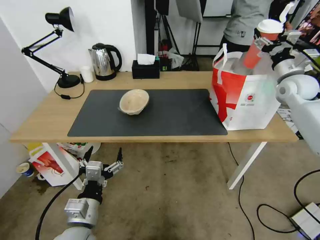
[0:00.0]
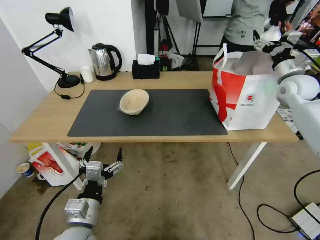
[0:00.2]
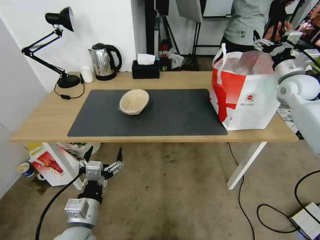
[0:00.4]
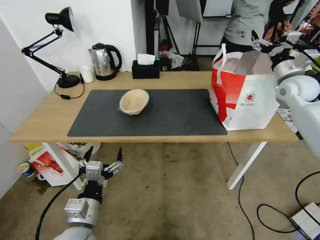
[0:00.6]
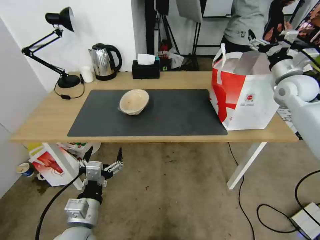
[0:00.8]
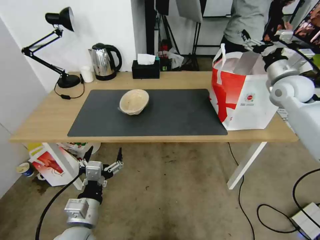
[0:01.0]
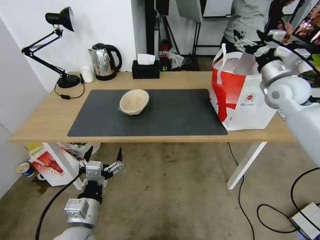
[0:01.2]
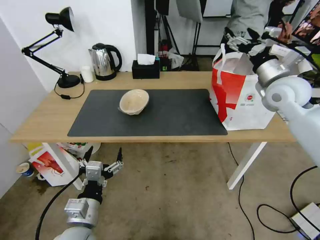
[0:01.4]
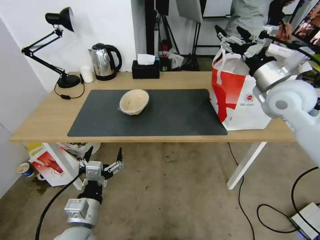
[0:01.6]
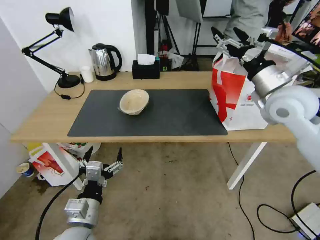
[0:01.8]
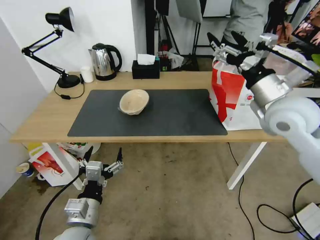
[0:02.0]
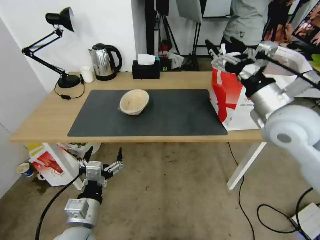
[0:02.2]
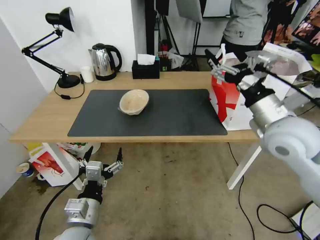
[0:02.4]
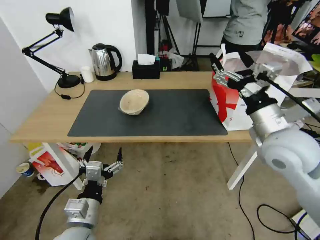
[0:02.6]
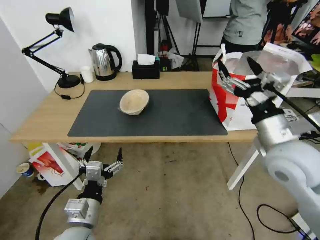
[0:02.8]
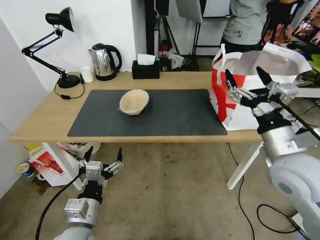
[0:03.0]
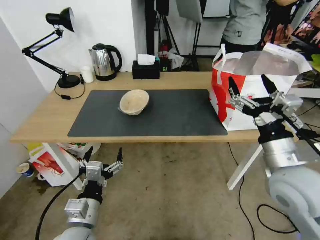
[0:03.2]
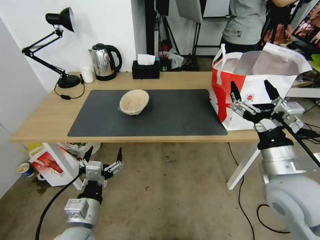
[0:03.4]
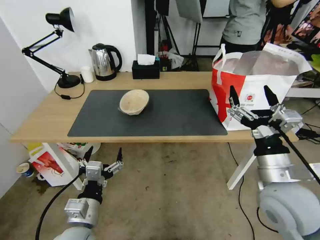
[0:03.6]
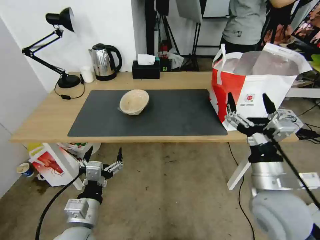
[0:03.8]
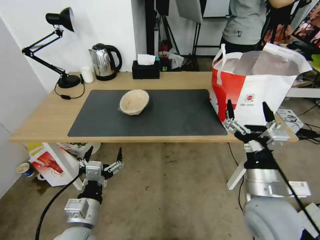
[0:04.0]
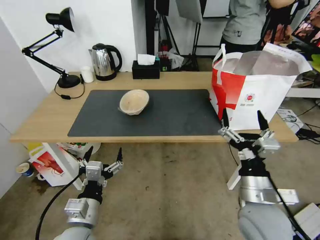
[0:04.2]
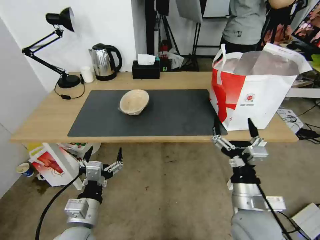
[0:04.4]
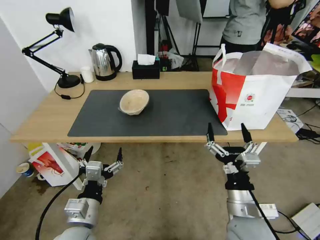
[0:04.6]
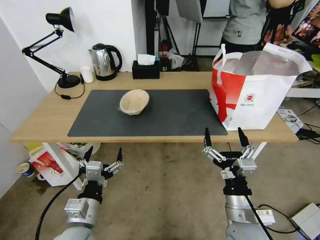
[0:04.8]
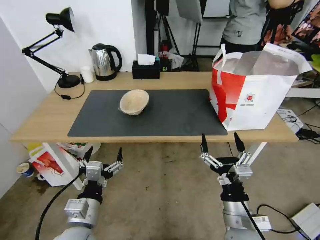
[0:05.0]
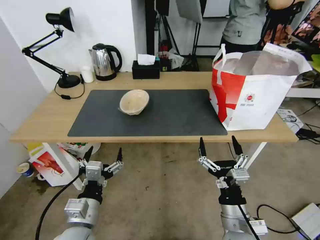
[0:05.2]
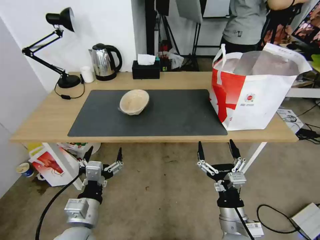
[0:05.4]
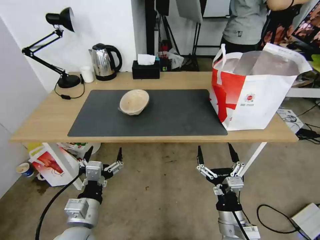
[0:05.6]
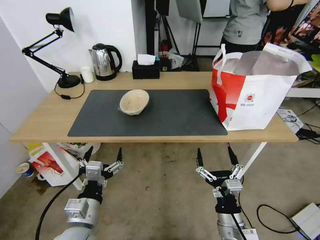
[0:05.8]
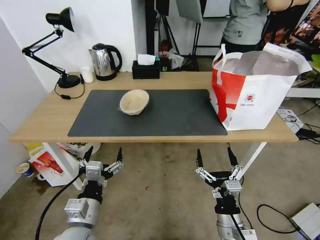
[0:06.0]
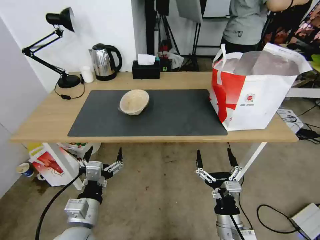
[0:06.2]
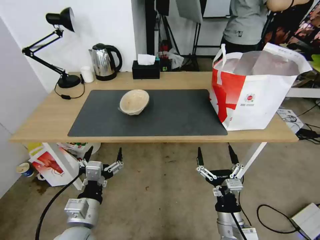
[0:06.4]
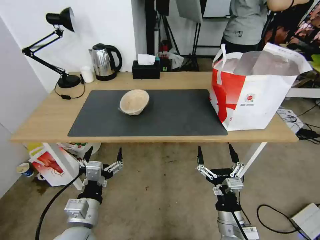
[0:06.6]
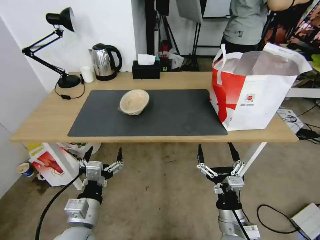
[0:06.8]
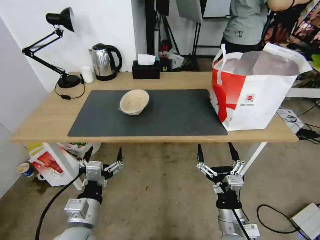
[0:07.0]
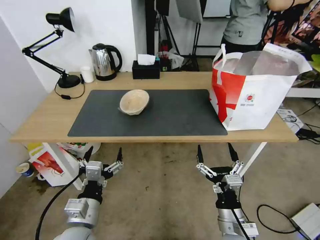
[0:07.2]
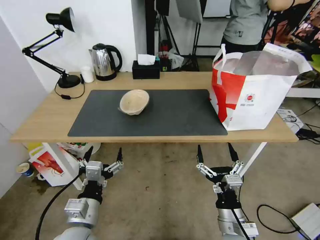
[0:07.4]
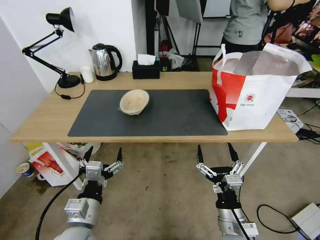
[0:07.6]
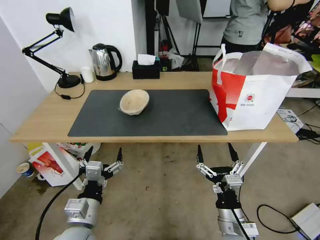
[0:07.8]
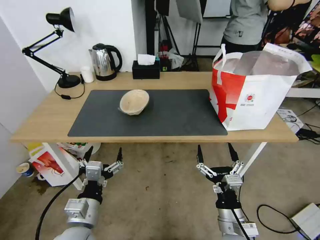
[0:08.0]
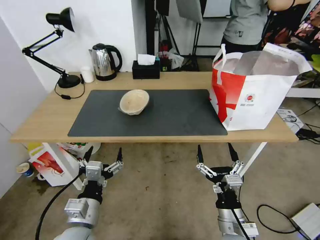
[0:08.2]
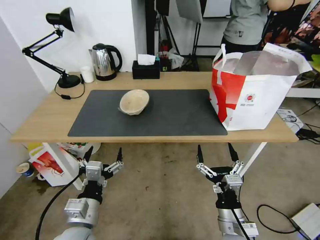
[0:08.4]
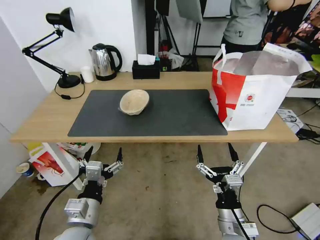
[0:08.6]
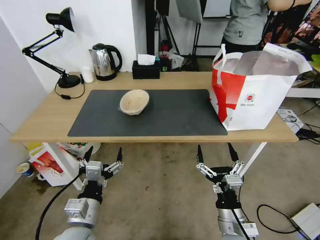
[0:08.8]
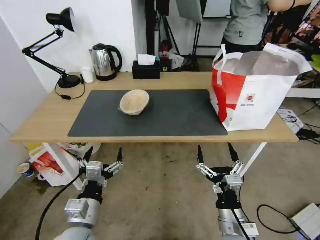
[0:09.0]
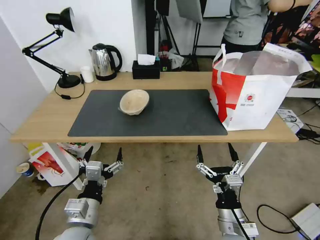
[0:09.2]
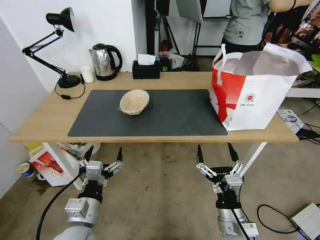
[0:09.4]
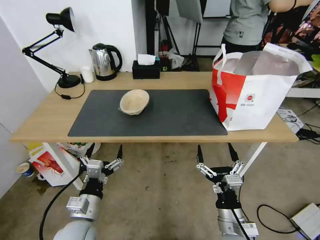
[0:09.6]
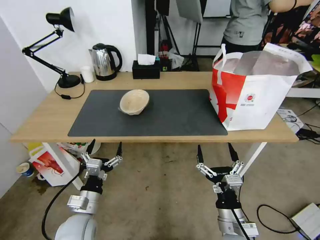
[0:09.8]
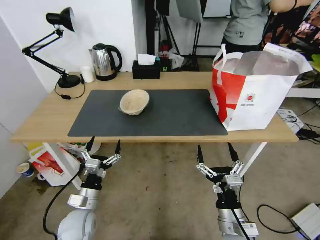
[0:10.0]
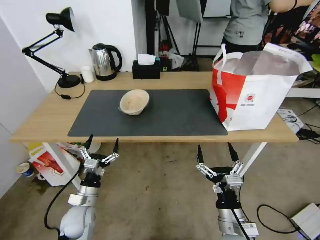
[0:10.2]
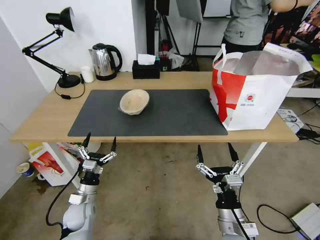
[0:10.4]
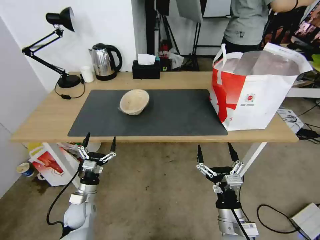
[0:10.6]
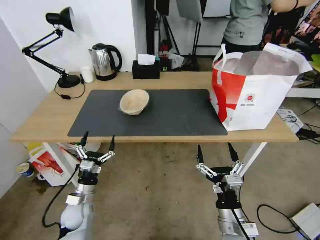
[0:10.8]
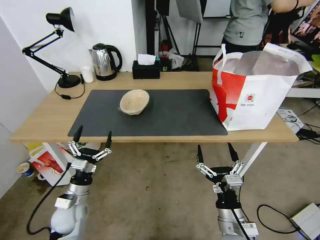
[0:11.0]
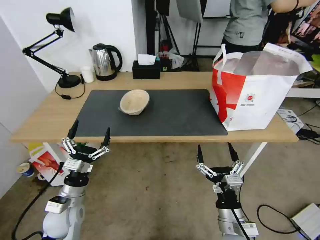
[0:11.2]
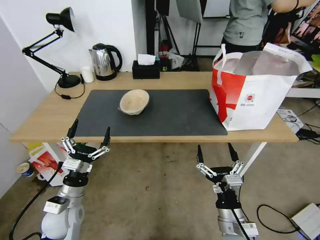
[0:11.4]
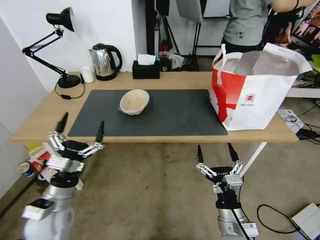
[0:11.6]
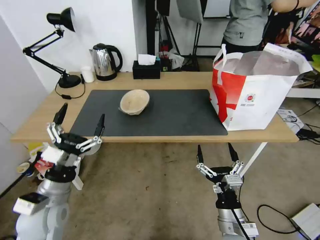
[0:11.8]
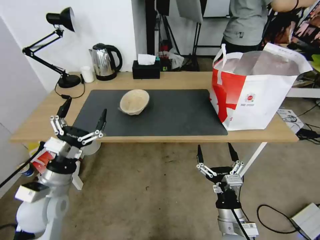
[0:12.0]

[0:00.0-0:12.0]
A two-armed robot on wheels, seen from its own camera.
Task of the whole recording: Pick up the trash from the table and place it into the takeout bag.
0:00.0 to 0:01.6: The right gripper is displaced to the left and backward by roughly 15 cm.
0:01.6 to 0:03.0: The right gripper goes roughly 20 cm backward and downward.
0:03.0 to 0:04.4: The right gripper goes some 15 cm downward, backward and to the left.
0:04.4 to 0:06.0: The right gripper moves downward and backward, some 10 cm.
0:06.0 to 0:07.6: There are only small adjustments of the grippers.
0:07.6 to 0:09.0: Neither gripper changes place.
0:09.0 to 0:10.4: The left gripper heads downward, forward and to the left, covering about 20 cm.
0:10.4 to 0:12.0: The left gripper is displaced upward by about 20 cm.

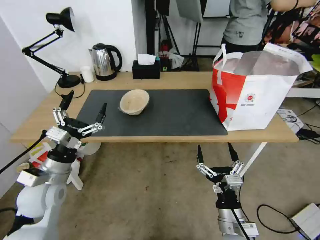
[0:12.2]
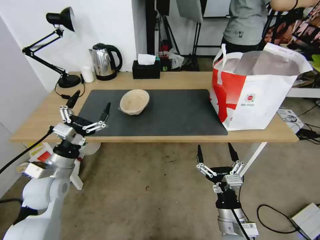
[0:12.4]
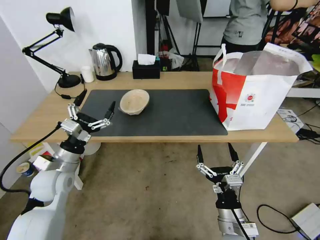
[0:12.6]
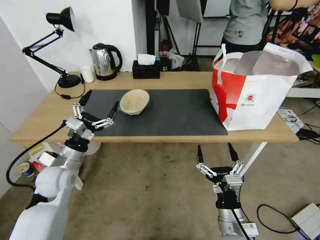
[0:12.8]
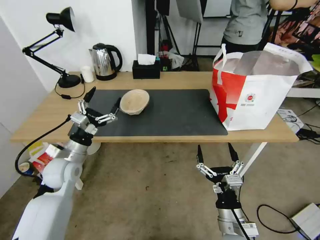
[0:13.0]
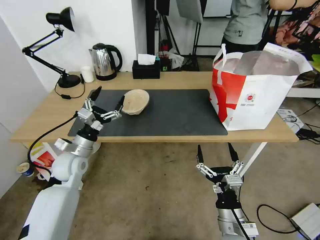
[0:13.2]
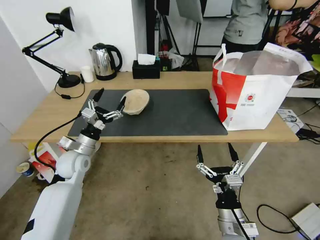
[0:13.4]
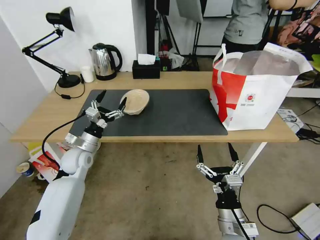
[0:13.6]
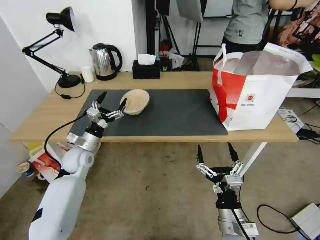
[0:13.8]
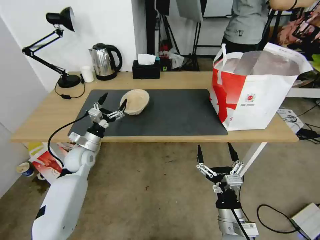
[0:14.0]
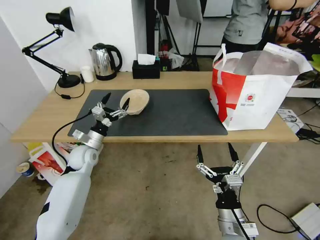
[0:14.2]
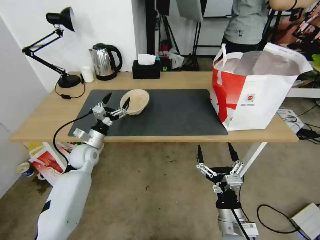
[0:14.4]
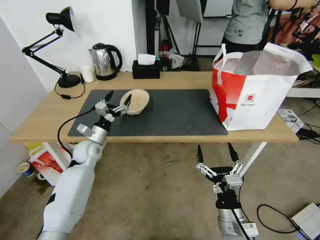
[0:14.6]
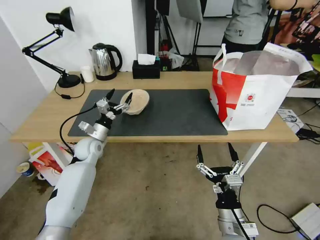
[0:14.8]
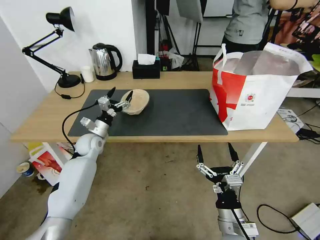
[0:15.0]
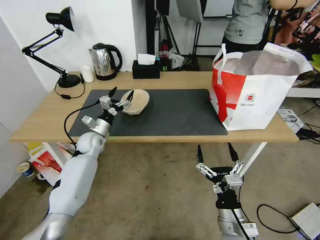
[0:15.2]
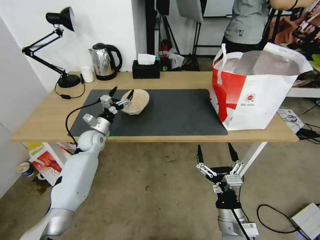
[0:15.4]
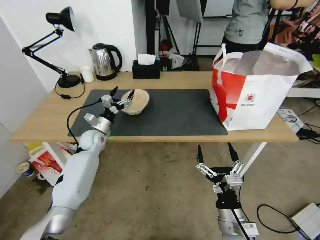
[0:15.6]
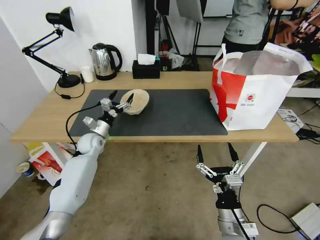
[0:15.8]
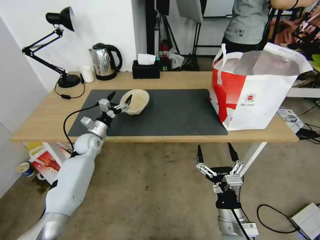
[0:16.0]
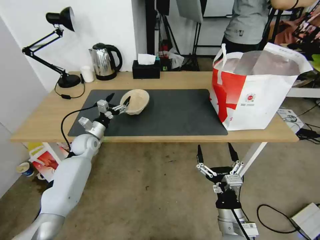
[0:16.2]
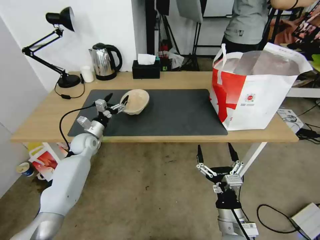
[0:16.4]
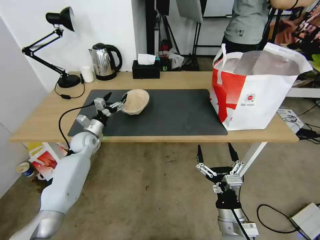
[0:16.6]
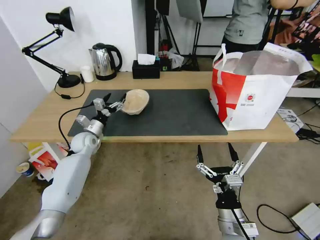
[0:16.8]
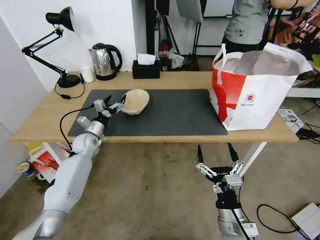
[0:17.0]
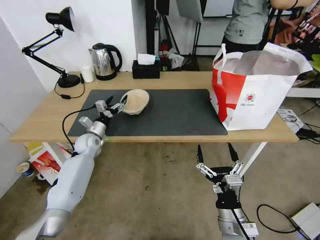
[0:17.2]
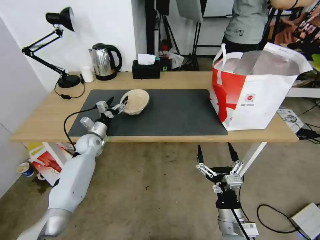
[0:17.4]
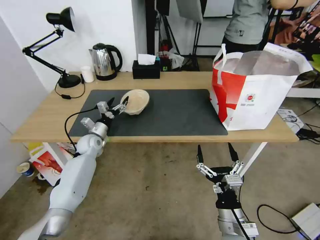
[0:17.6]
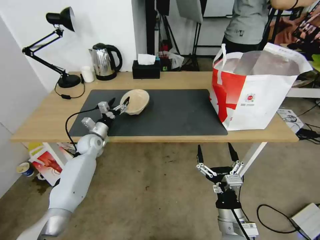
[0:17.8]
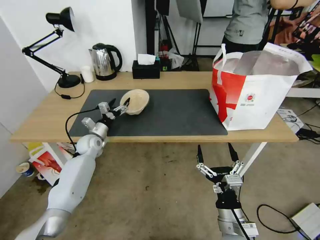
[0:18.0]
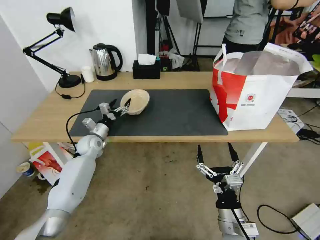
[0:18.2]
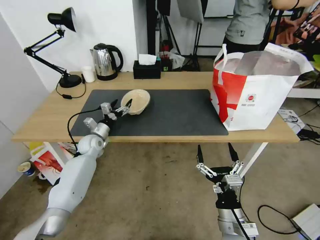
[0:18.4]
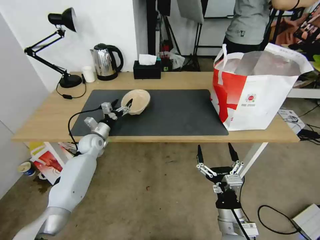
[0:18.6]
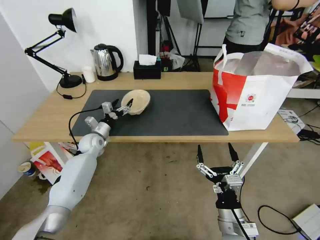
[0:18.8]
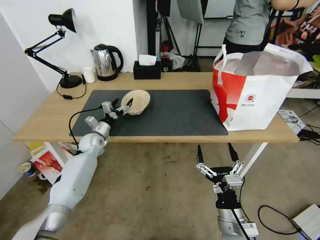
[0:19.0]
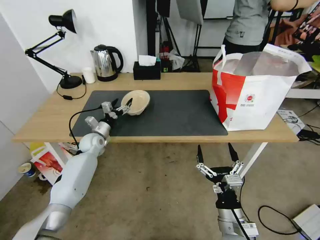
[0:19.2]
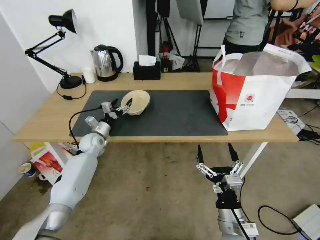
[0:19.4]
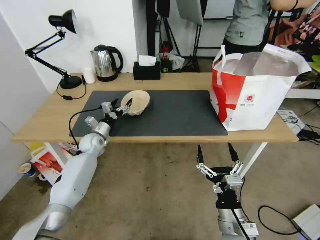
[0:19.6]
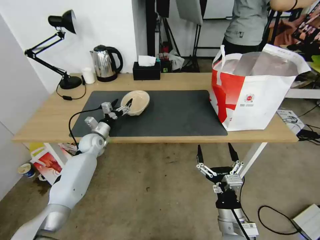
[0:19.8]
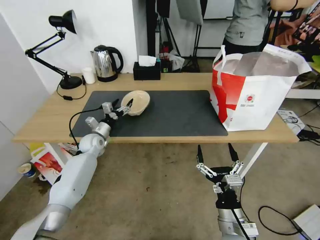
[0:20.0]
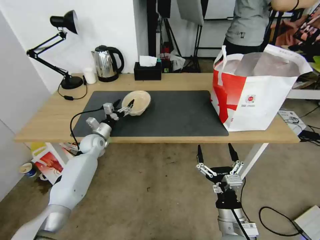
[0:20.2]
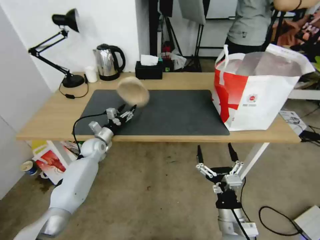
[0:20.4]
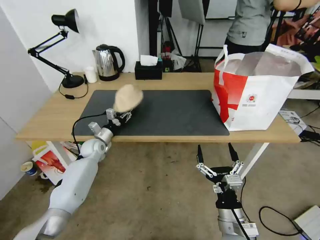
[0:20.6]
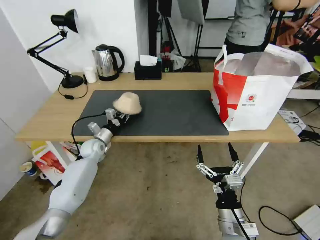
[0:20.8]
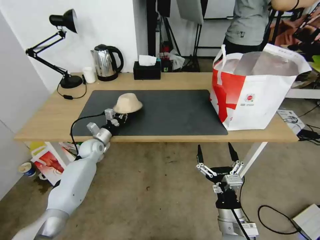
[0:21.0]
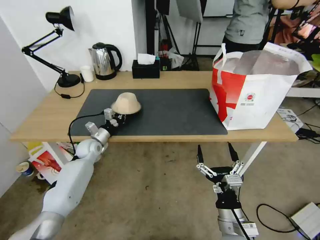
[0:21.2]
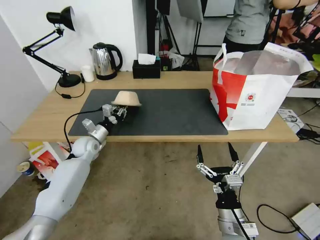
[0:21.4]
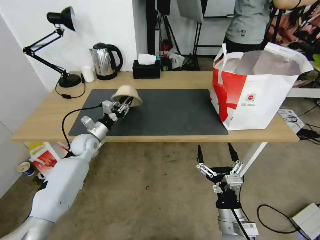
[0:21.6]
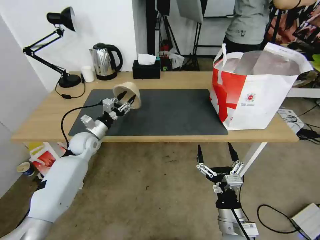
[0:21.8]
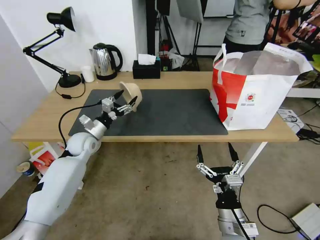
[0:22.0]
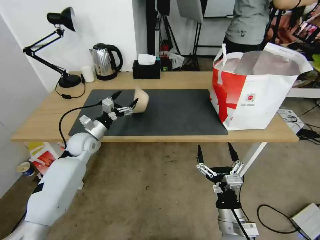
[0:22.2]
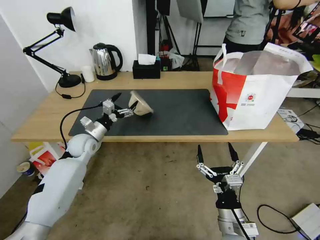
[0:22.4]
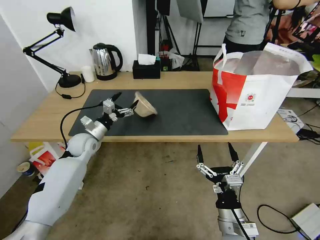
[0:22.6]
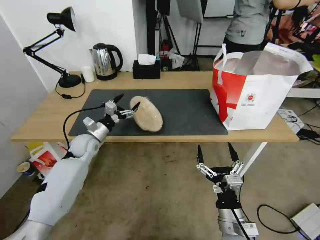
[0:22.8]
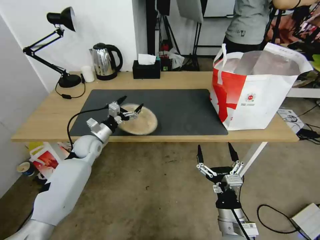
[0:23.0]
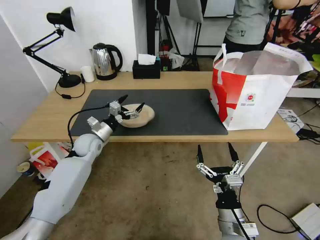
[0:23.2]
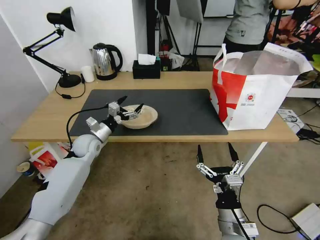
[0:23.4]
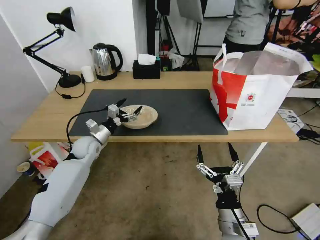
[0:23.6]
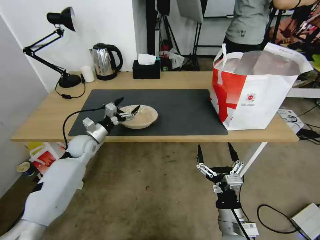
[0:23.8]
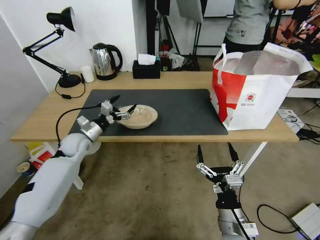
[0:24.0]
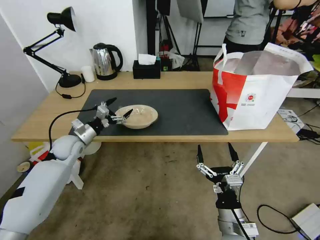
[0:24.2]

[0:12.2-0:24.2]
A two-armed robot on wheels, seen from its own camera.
Task of the whole recording: Pick up the trash from the table and place it into the takeout bag.
0:12.2 to 0:13.8: The left gripper shifts some 15 cm forward and downward.
0:13.8 to 0:15.2: The left gripper travels forward by some 10 cm.
0:15.2 to 0:18.2: The grippers stay close to where they were, moving slightly.
0:18.2 to 0:19.8: Both grippers stay about where they are.
0:19.8 to 0:21.2: The left gripper closes up.
0:21.2 to 0:22.6: The left gripper shifts approximately 5 cm upward, and opens its fingers.
0:22.6 to 0:24.2: The grippers move only a little.
